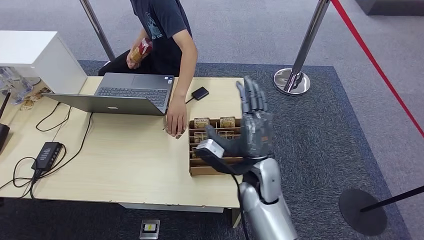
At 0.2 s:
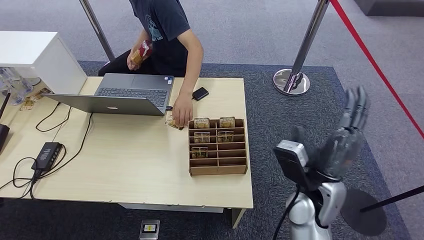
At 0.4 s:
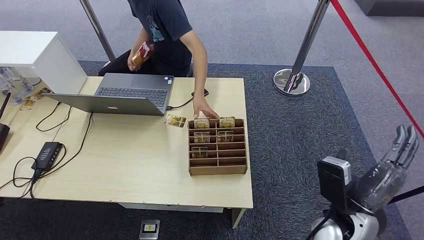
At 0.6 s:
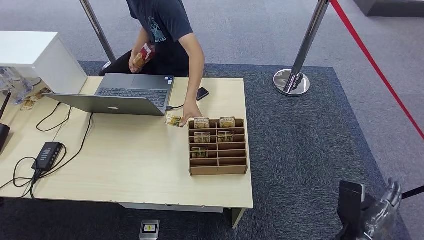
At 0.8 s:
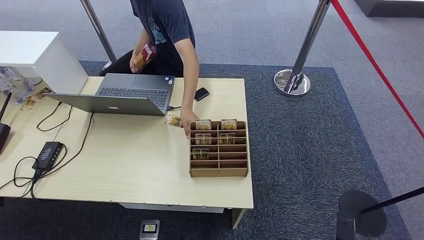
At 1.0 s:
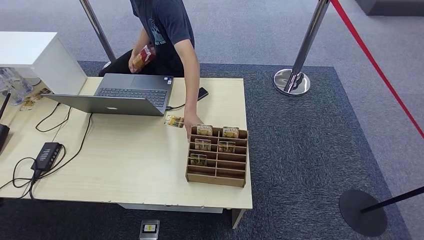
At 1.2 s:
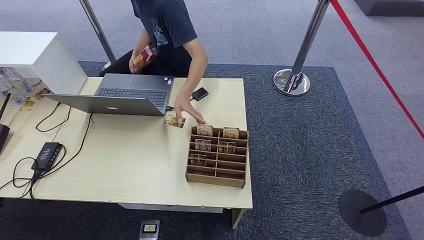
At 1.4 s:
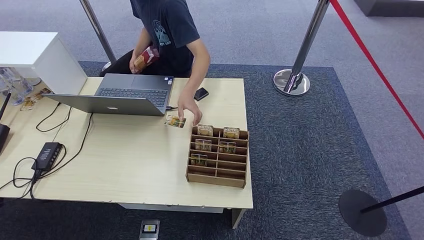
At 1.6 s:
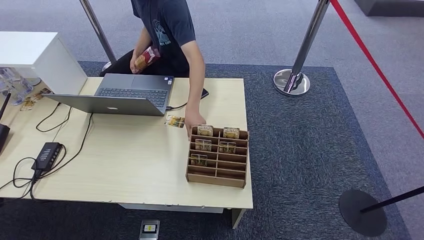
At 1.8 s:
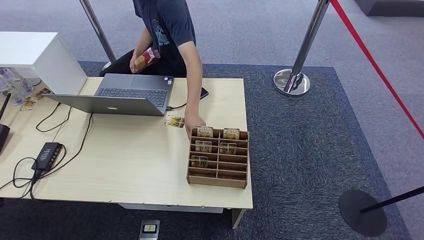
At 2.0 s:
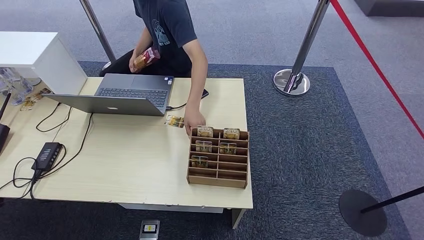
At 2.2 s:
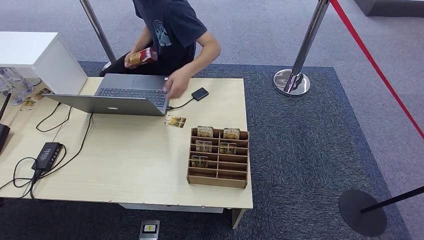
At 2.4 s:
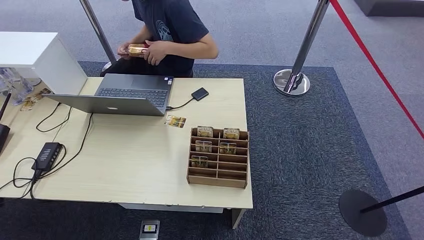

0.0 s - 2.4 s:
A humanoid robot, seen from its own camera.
Step, 0.0 s - 2.4 s: Hand the room card to the target.
0.0 s - 1.2 s: The right hand is displaced downward, backward and to the right by some 40 cm.
1.2 s - 2.4 s: The hands move only a little.

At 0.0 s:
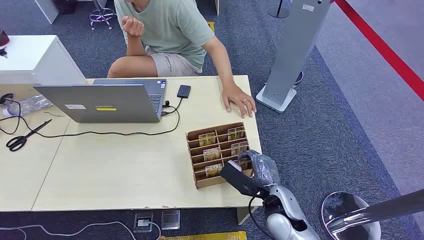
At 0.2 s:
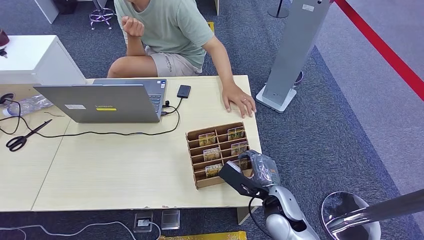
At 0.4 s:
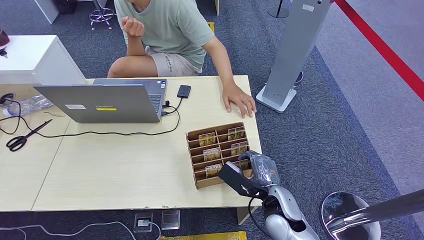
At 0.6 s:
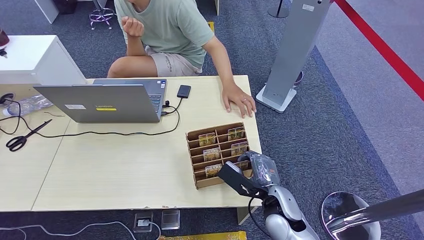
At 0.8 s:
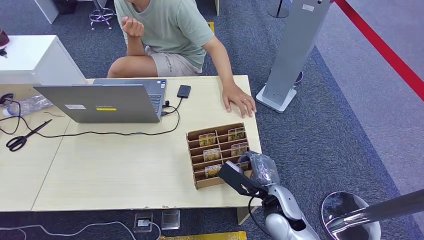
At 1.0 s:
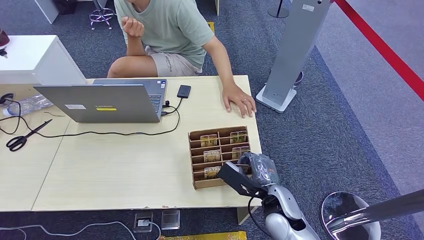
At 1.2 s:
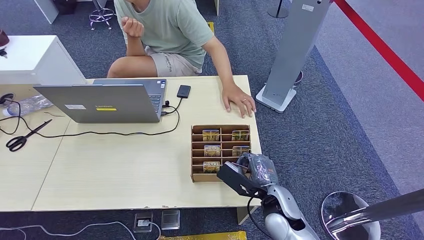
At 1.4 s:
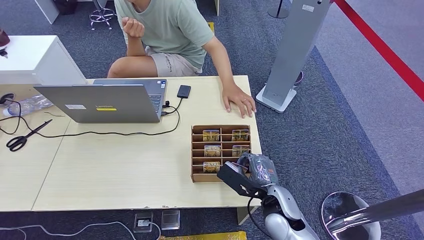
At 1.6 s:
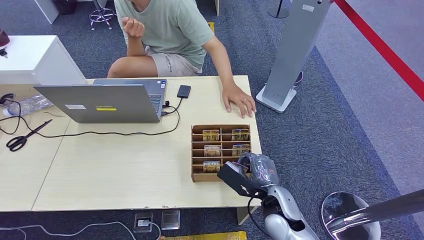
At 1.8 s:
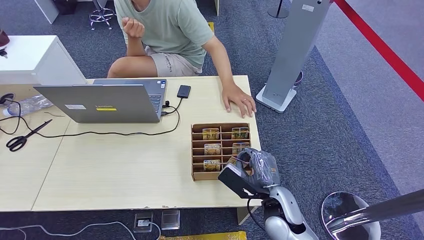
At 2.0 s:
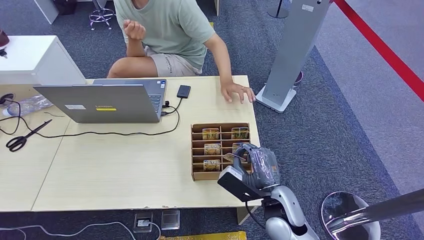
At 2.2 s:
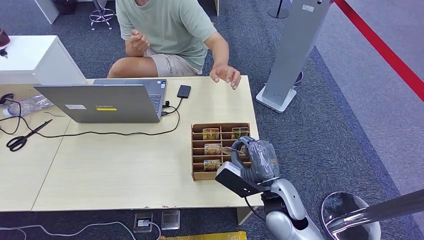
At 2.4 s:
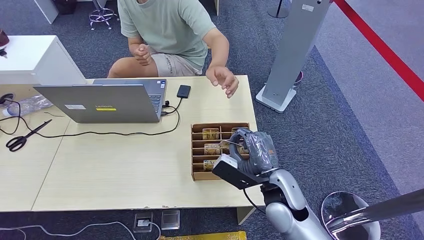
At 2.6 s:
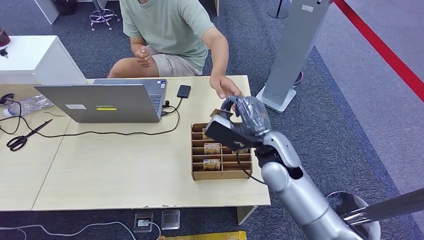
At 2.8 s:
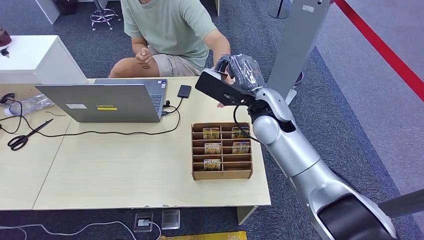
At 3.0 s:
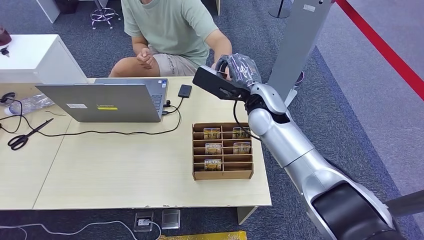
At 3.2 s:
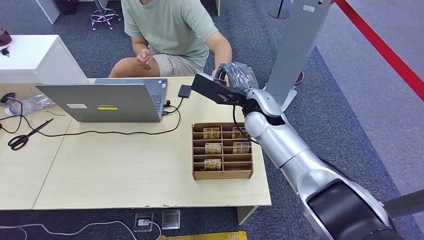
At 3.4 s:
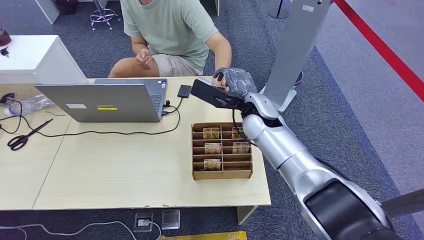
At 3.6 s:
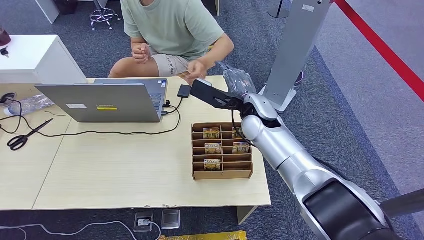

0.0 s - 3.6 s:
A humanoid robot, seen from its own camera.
Step, 0.0 s - 2.0 s: Pick up the room card from the card holder.
Step, 3.0 s - 3.6 s: Hand the room card to the target.
1.8 s - 3.6 s: The right hand moves forward and upward, some 25 cm.

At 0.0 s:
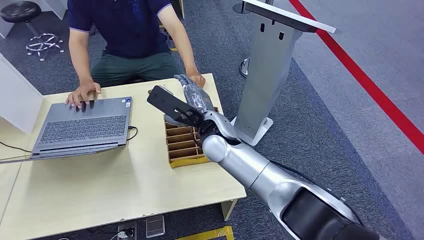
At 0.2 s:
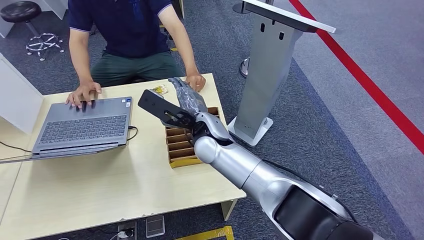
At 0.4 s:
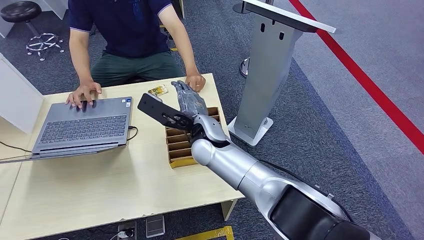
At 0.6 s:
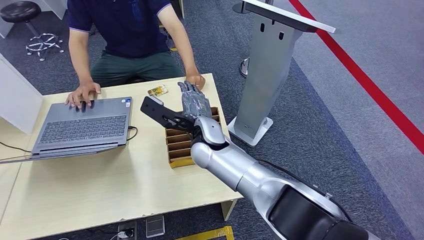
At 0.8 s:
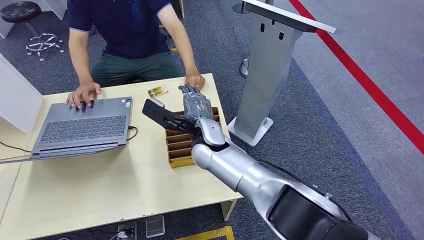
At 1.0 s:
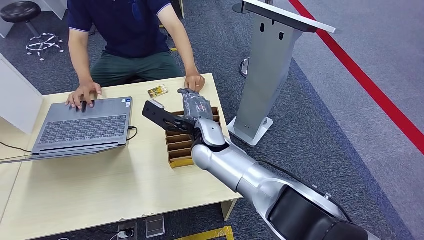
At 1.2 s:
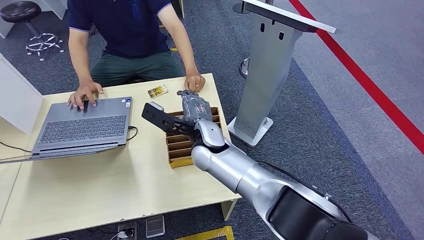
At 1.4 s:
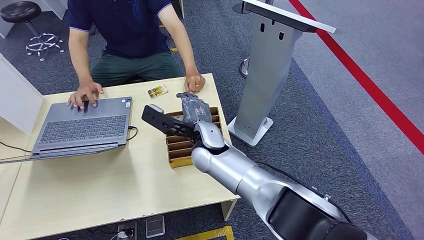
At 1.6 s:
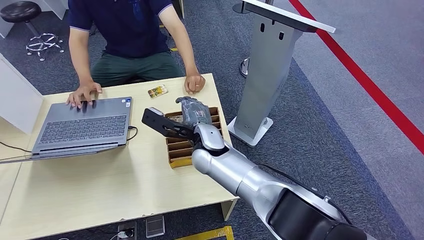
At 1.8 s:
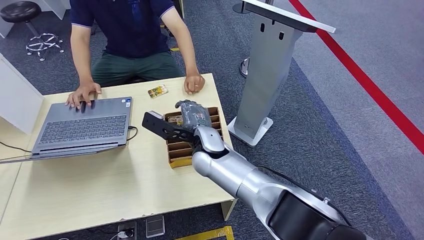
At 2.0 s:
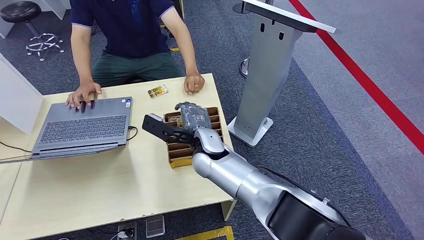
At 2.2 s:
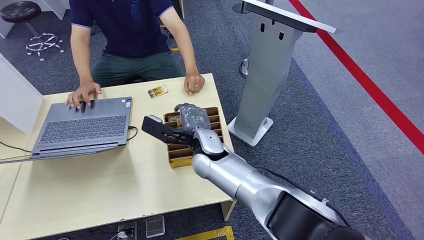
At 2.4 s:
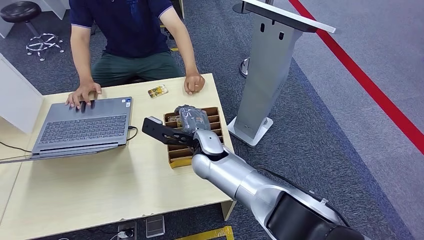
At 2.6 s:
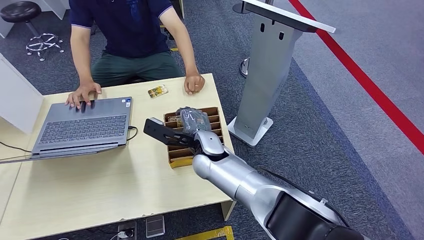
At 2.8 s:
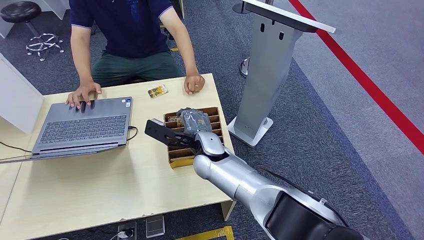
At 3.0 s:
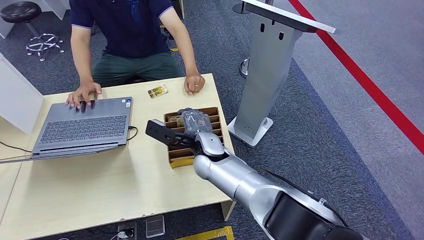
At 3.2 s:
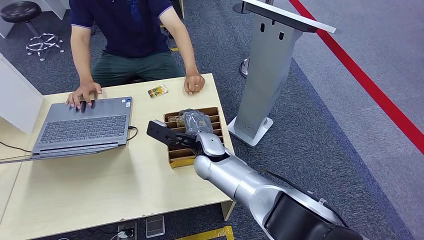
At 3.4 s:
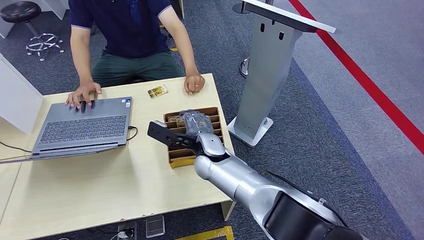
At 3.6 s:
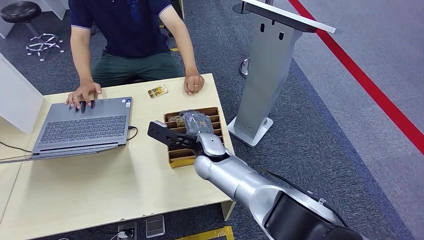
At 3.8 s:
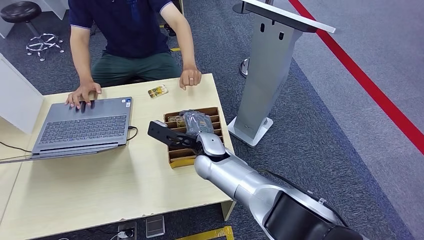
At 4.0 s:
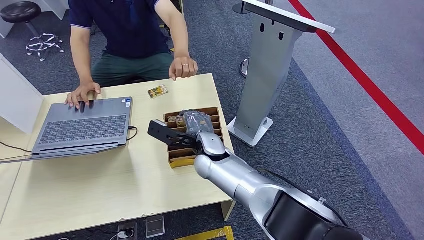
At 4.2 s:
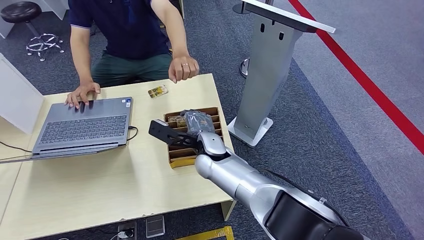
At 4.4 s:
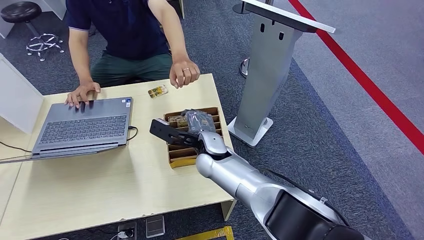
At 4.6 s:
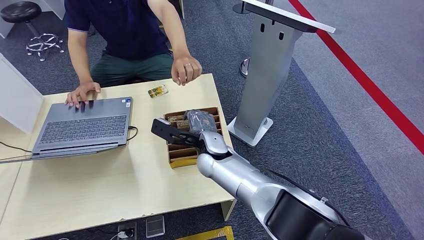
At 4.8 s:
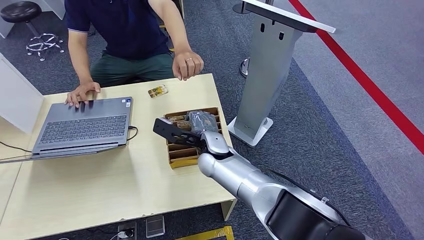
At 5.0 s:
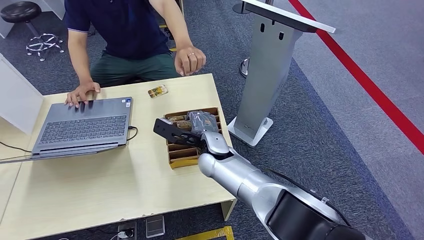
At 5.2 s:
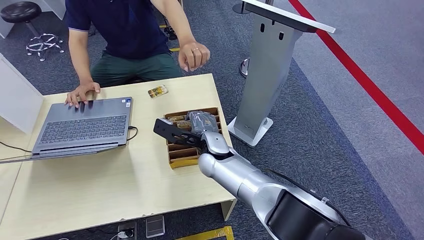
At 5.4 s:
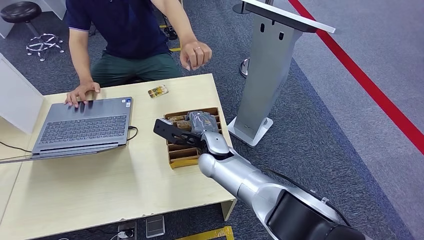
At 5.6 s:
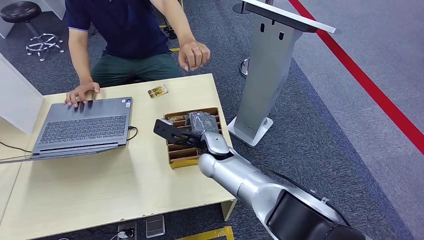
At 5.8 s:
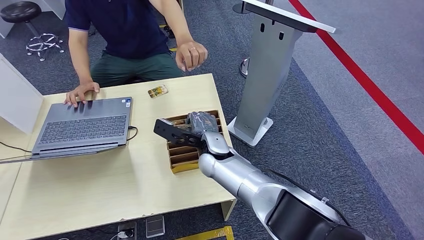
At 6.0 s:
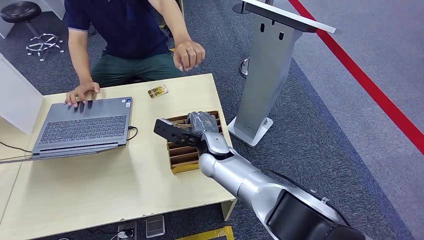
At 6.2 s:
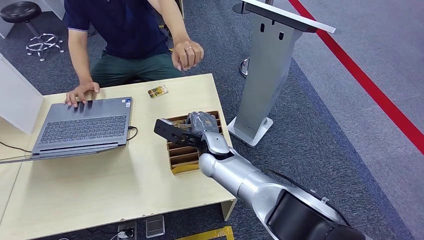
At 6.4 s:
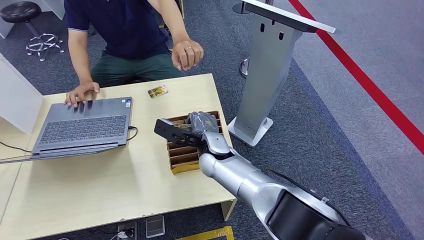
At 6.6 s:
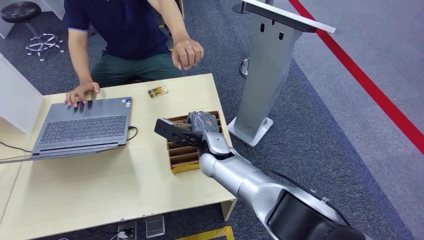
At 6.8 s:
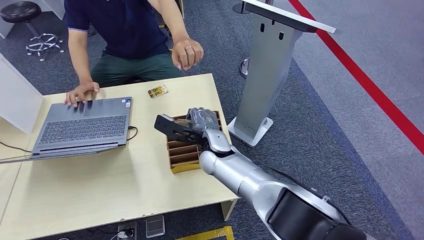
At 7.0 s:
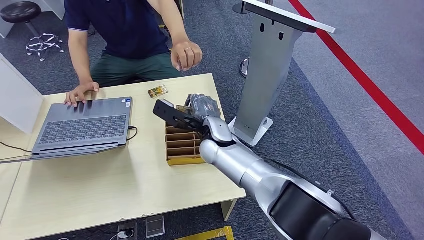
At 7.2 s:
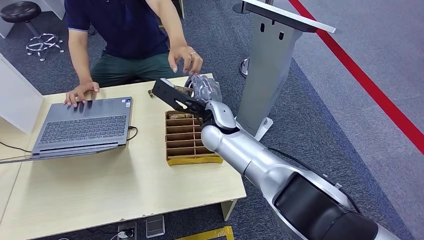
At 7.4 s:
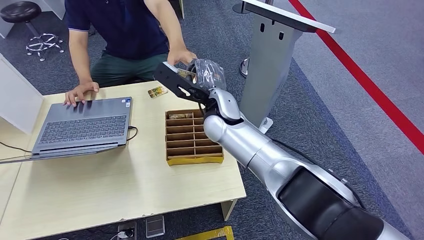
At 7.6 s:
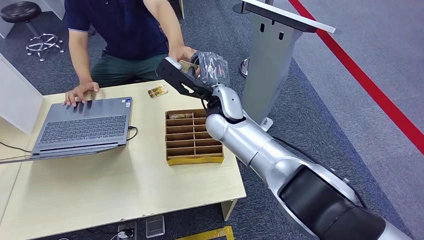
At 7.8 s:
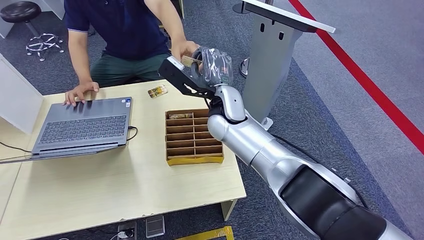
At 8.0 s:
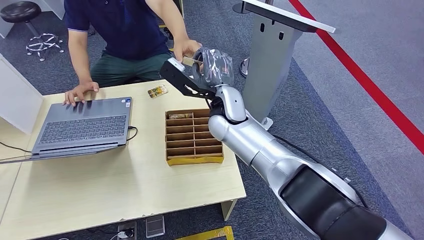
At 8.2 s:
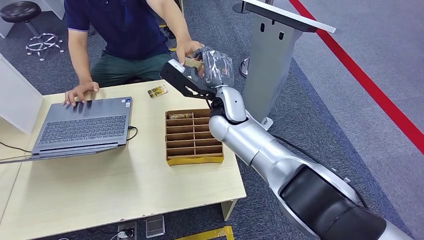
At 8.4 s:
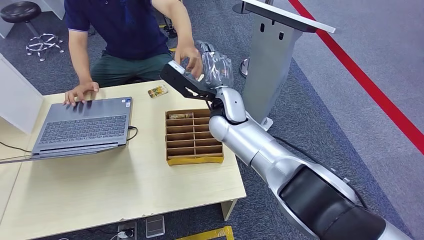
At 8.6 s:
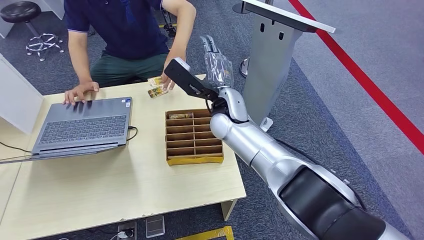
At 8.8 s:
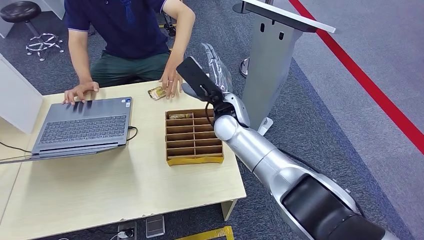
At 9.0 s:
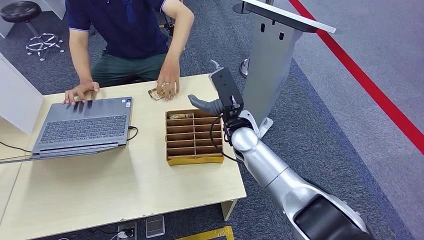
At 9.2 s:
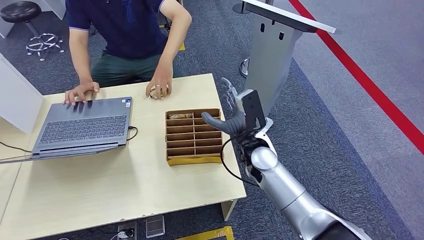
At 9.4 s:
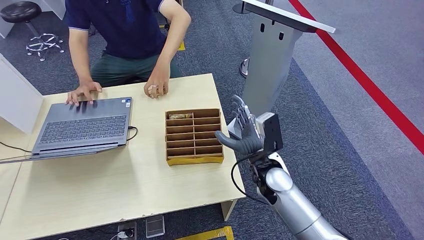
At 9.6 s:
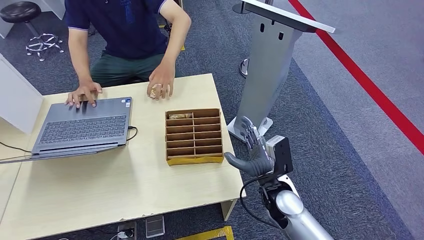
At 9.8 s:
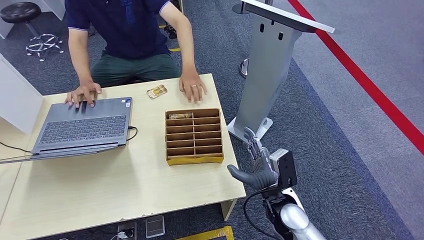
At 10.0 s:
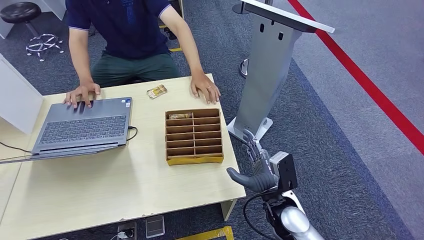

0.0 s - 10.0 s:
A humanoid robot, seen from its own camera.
Step, 0.0 s - 7.2 s: Pick up the room card from the card holder.
Step, 7.4 s - 10.0 s: Hand the room card to the target.
1.4 s - 2.8 s: The hands stay close to where they were, moving slightly.
2.8 s - 4.2 s: Both hands stay put.
4.2 s - 5.8 s: Both hands stay put.
5.8 s - 7.2 s: The right hand is displaced upward by about 10 cm.
7.2 s - 8.6 s: The hands stay close to where they were, moving slightly.
8.6 s - 10.0 s: The right hand travels backward, downward and to the right by approximately 30 cm.
